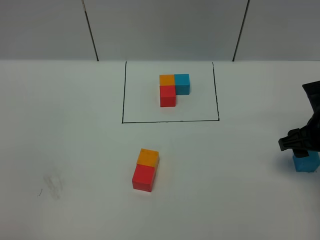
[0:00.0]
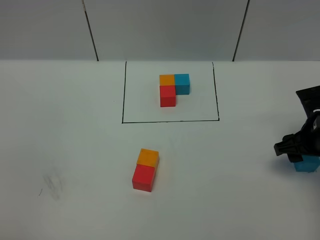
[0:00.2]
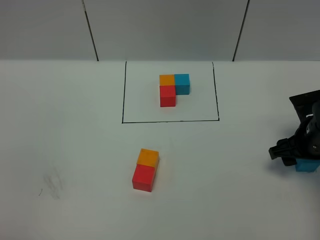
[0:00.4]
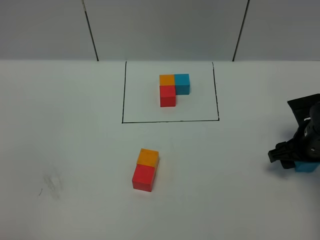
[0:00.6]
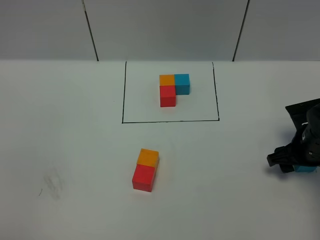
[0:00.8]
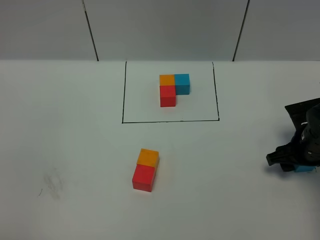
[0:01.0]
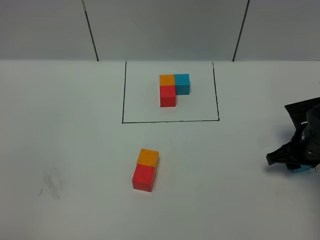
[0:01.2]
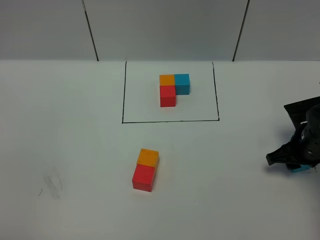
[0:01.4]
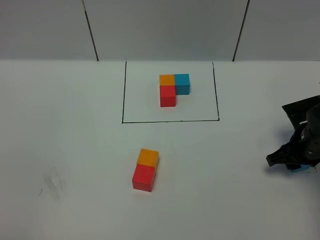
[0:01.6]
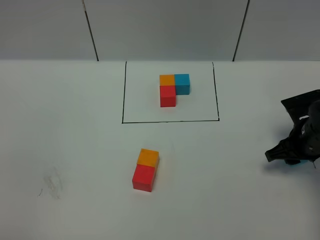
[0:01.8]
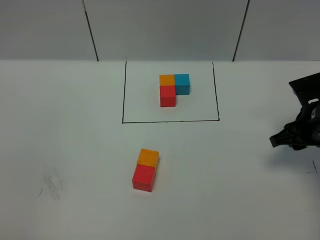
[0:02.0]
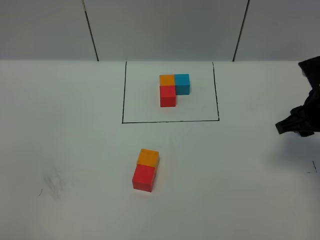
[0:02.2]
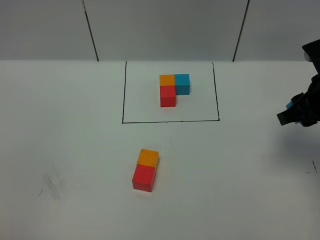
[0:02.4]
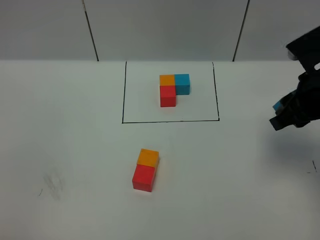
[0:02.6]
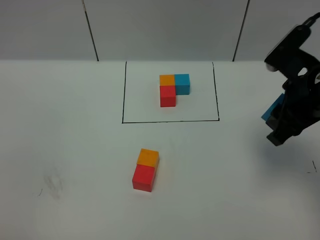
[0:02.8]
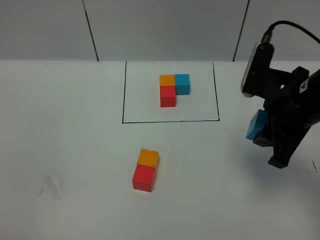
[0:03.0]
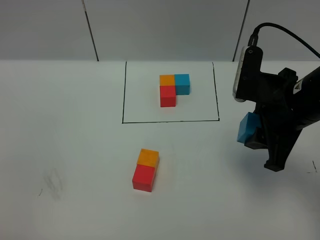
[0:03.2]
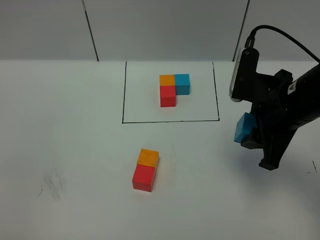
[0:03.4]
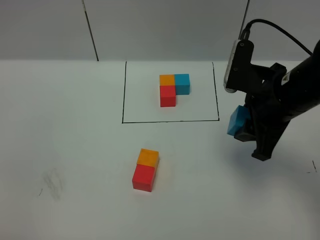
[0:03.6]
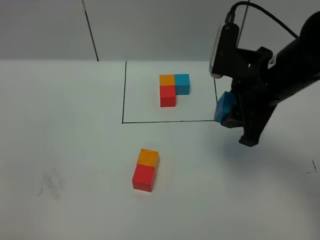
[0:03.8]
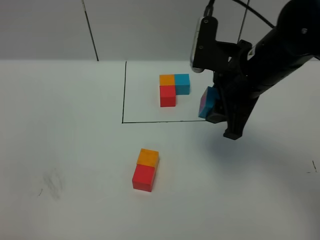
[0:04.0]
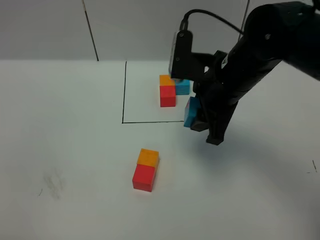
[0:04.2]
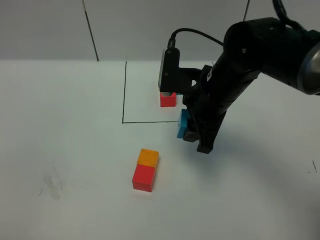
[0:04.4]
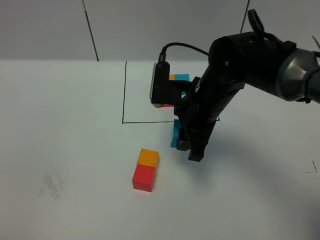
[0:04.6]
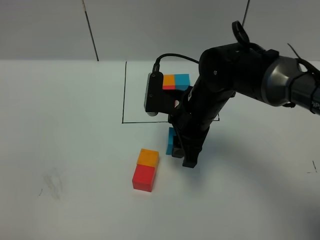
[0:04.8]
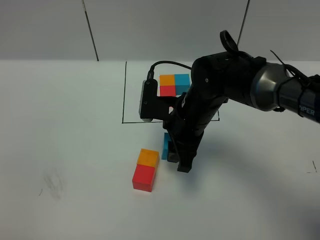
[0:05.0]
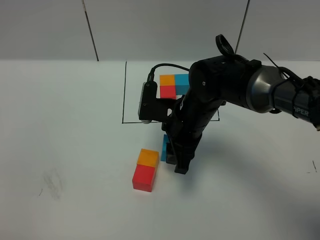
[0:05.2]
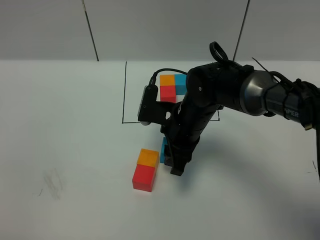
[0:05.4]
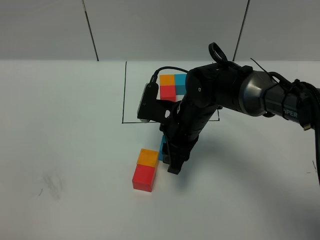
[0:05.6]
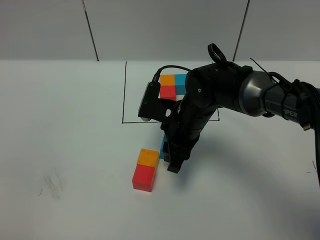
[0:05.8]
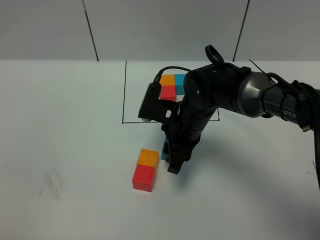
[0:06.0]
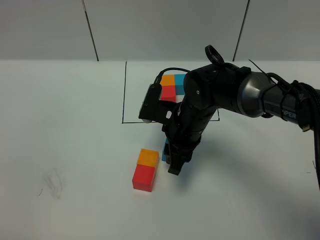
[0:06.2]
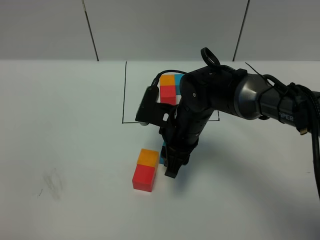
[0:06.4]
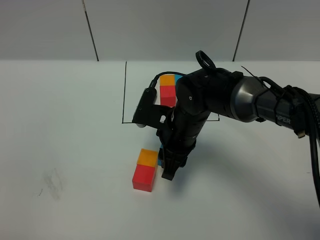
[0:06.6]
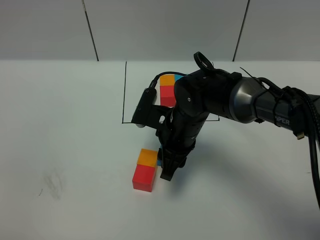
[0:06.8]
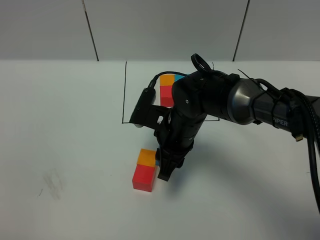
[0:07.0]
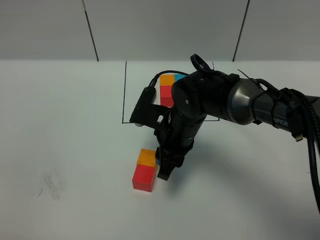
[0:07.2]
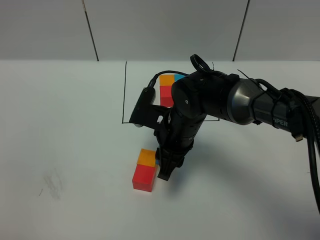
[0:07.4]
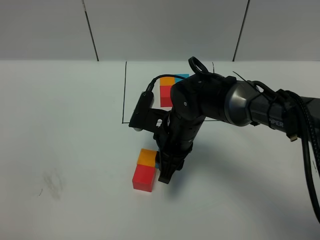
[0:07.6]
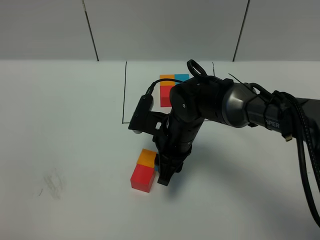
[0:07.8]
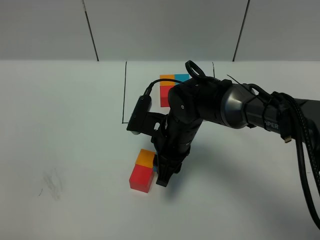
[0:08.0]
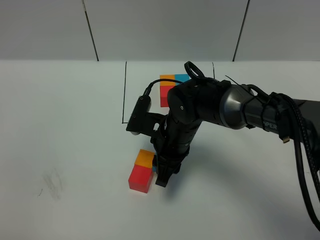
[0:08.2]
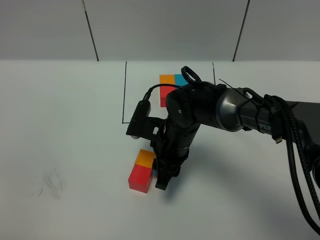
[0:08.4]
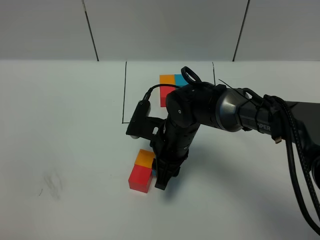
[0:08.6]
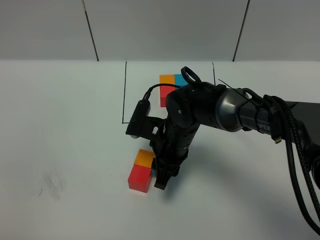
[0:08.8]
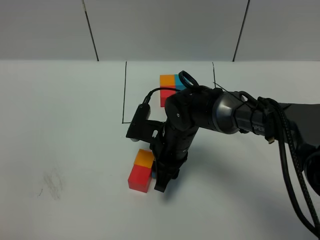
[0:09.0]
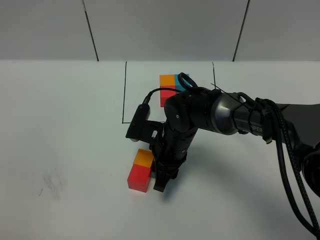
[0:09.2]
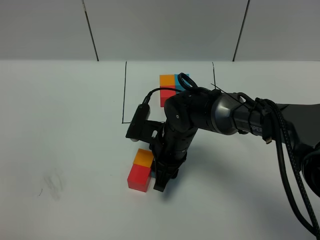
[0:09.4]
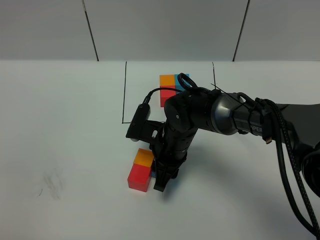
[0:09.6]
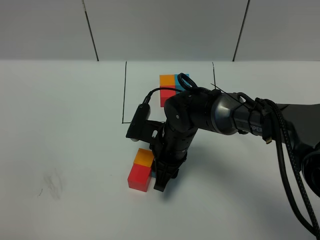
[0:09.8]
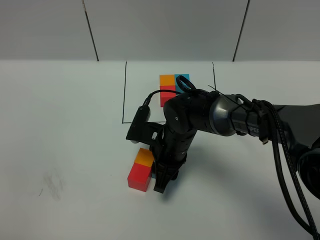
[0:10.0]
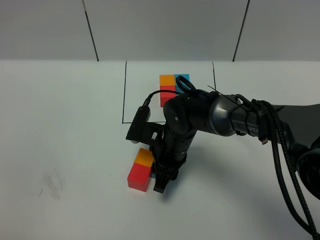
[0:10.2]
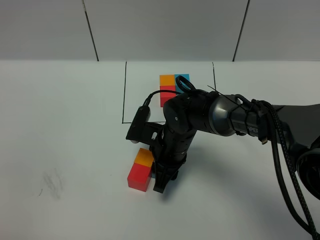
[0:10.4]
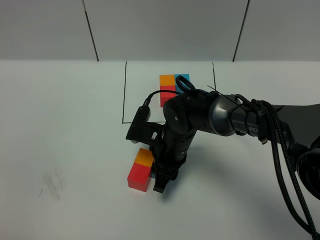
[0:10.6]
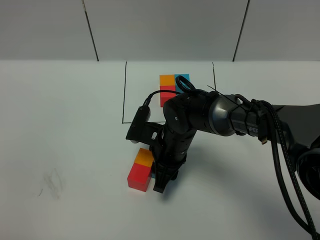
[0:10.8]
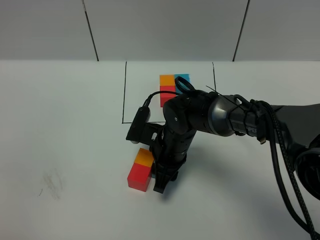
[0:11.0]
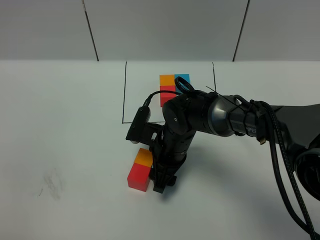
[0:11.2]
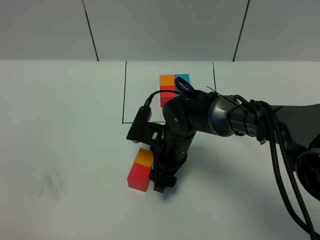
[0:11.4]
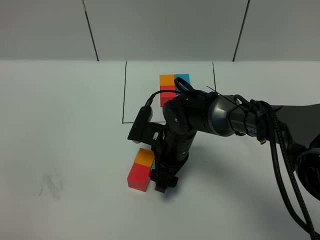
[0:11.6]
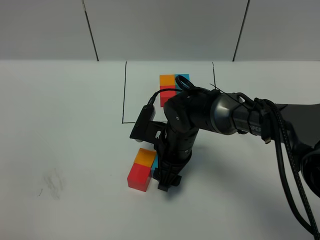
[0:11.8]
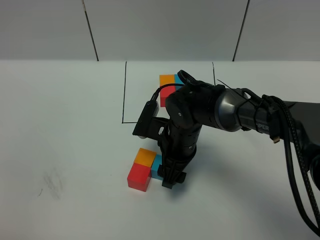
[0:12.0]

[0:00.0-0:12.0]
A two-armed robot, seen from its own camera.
Task of the whole recording: According to the building block template in front, assemble the scattered blocks together.
0:00.0 to 0:01.6: The right gripper goes about 5 cm downward.
0:01.6 to 0:03.0: The right gripper travels upward and to the left by roughly 20 cm.
0:03.0 to 0:04.4: The right gripper is displaced to the left and forward by about 10 cm.
0:04.4 to 0:06.0: The right gripper travels downward by about 10 cm.
0:06.0 to 0:09.0: The grippers stay close to where they were, moving slightly.
0:09.0 to 0:10.4: Both grippers stay put.
0:10.4 to 0:12.0: The right gripper opens.

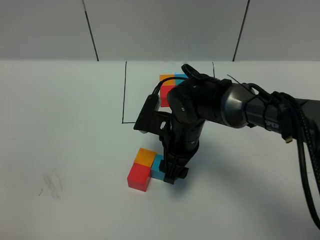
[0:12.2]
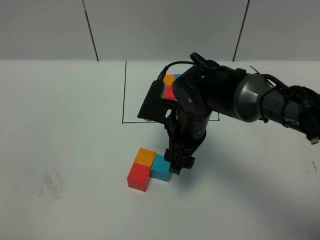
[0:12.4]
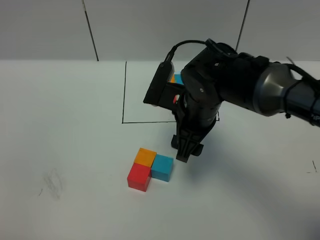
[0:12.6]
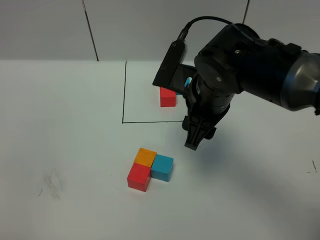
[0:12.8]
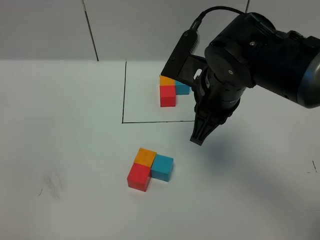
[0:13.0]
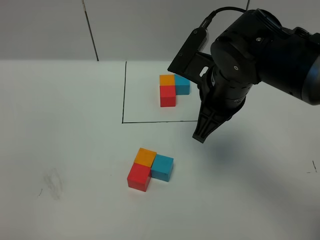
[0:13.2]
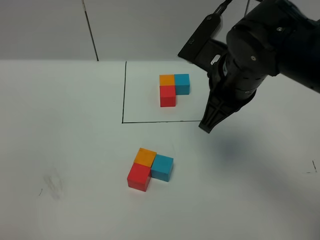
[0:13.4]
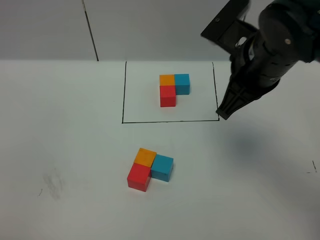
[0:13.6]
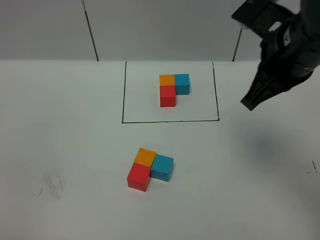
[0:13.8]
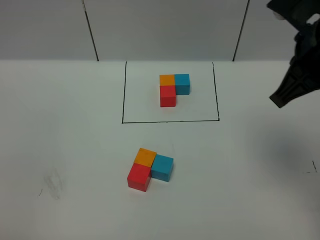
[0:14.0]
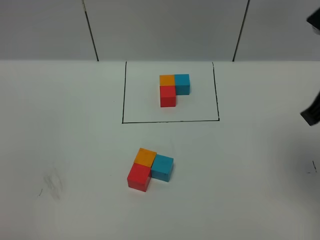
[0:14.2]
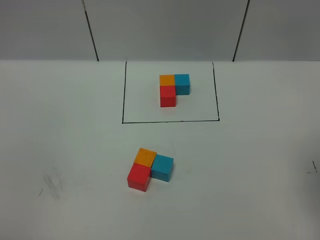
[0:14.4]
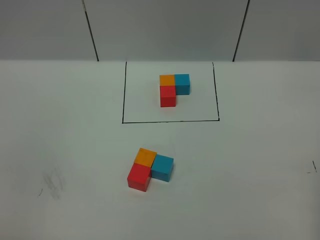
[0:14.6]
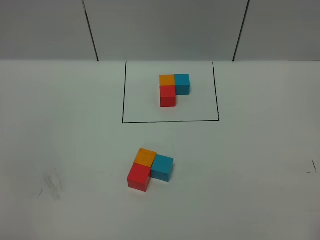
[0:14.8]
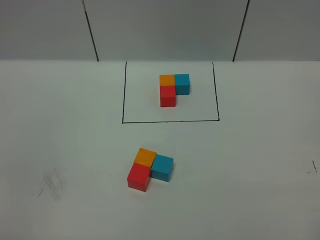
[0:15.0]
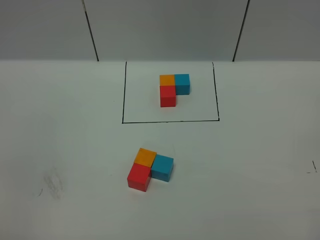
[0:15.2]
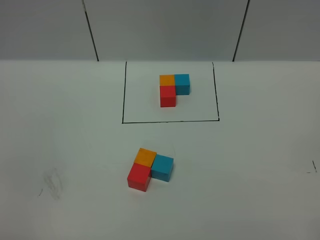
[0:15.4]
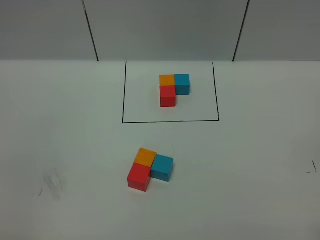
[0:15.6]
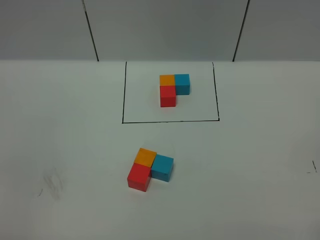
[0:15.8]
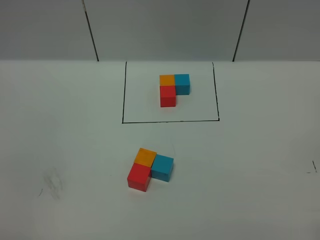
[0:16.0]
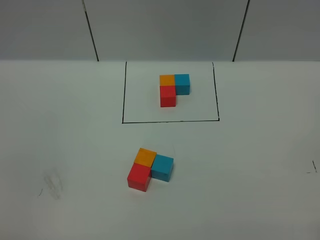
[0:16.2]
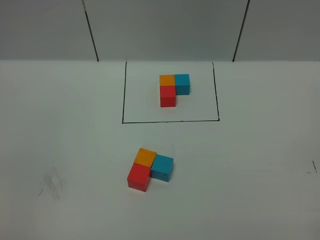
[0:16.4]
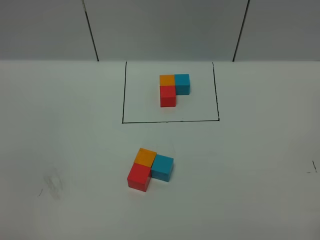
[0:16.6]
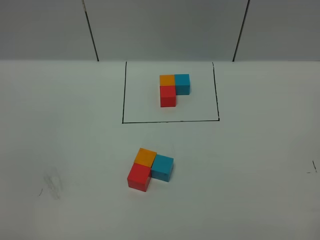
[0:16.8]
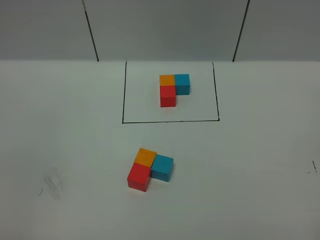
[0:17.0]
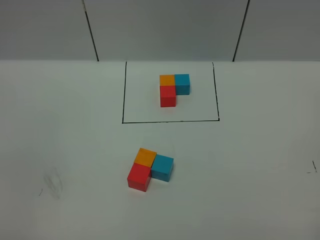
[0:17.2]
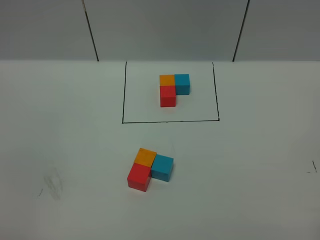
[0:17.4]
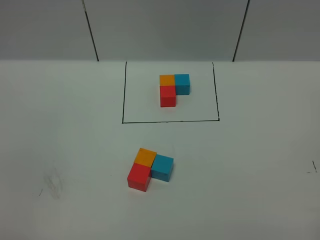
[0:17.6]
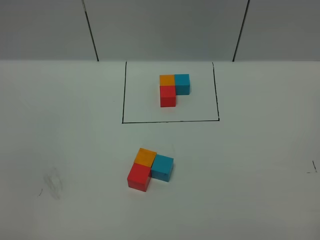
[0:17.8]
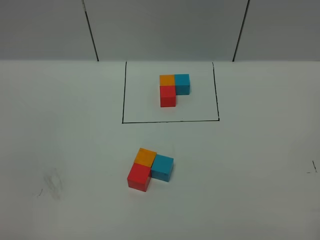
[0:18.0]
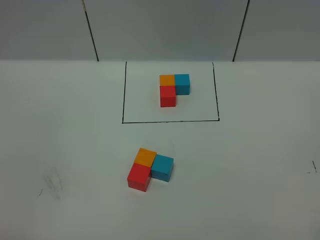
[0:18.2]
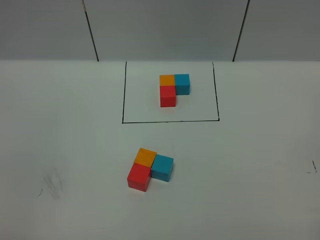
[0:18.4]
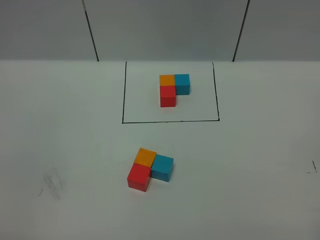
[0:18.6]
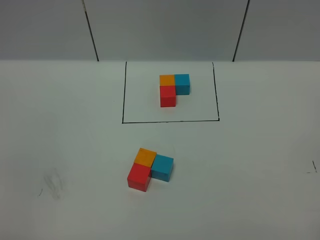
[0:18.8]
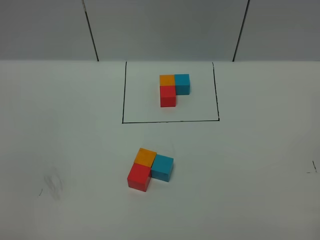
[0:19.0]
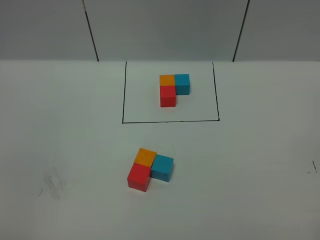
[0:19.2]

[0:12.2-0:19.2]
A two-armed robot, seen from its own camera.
Task of the whole recording: According to the building block template in front, assemble the scattered blocks together.
0:12.2 to 0:13.6: The right gripper moves upward and to the right, roughly 20 cm, and closes up.
0:13.6 to 0:15.0: The right gripper heads backward and to the right, covering some 30 cm.
0:17.8 to 0:19.2: Neither gripper changes place.

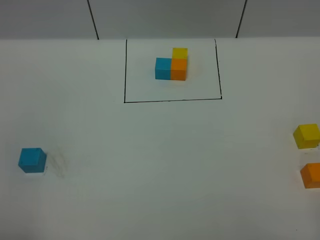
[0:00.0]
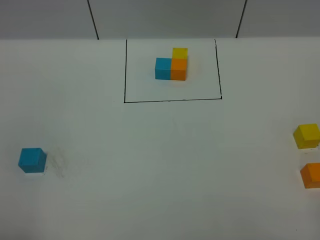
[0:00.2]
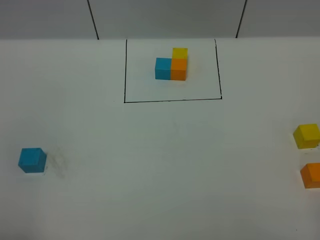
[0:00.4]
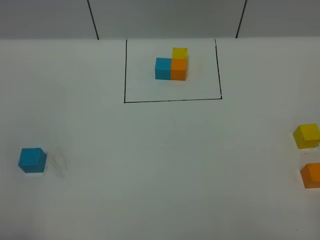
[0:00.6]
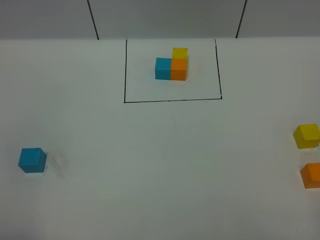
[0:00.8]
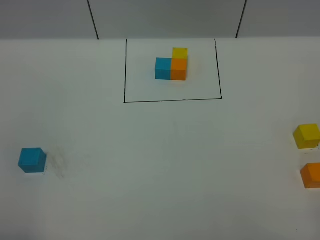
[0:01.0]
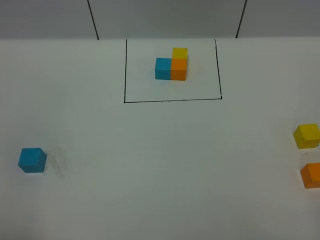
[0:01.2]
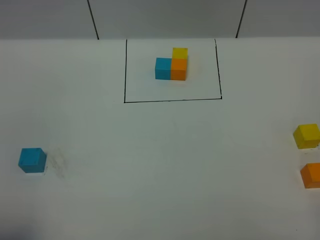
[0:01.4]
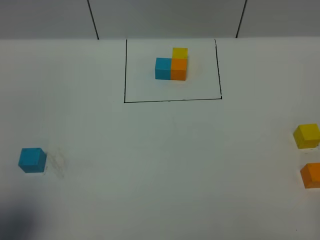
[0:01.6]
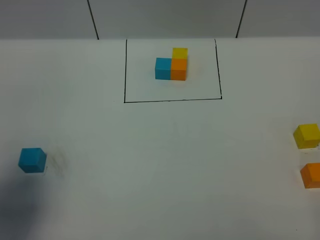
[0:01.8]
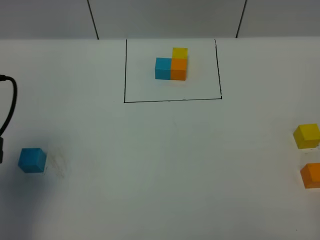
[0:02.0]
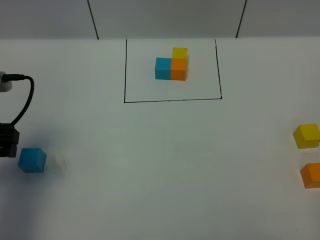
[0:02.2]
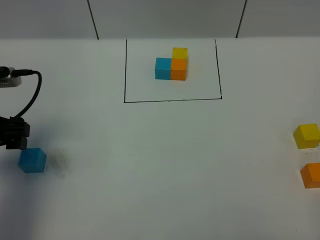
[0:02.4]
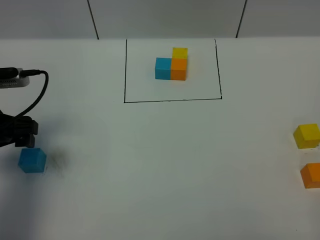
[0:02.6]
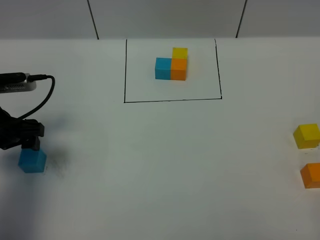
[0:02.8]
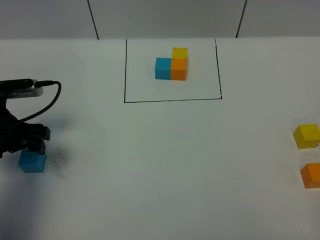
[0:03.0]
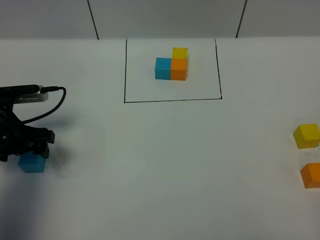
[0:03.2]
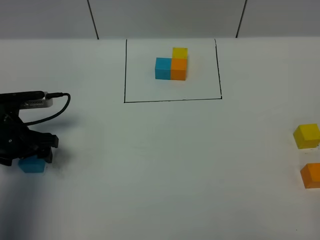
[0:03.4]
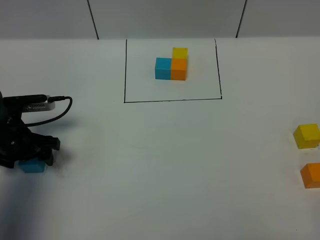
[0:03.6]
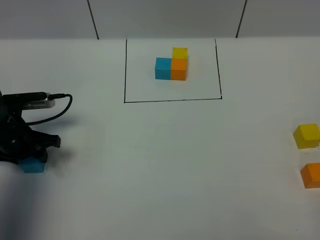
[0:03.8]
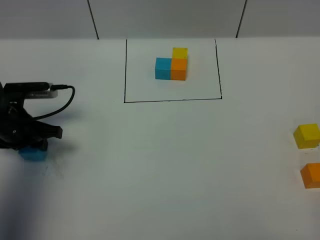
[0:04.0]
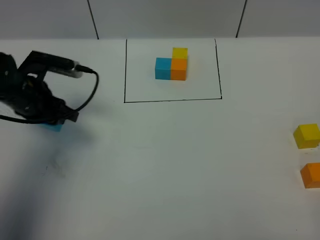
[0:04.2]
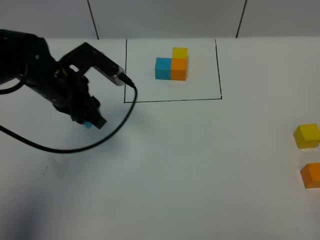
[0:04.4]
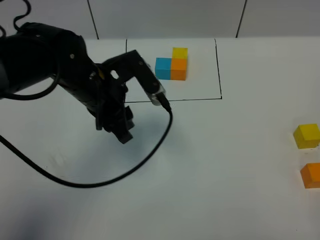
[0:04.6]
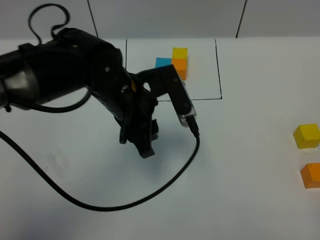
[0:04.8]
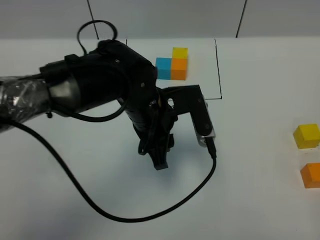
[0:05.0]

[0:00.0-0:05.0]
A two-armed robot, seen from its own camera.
Task of the whole recording: According to the building block template in front, assemble the scattered blocks together.
0:00.0 to 0:01.6: The left gripper is displaced forward by approximately 10 cm.
0:01.6 to 0:03.4: The left gripper travels forward and downward by approximately 30 cm.
0:03.4 to 0:05.0: The left gripper goes about 25 cm to the right, and closes its fingers.
